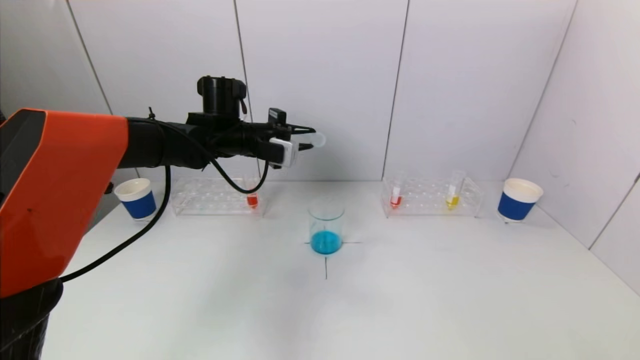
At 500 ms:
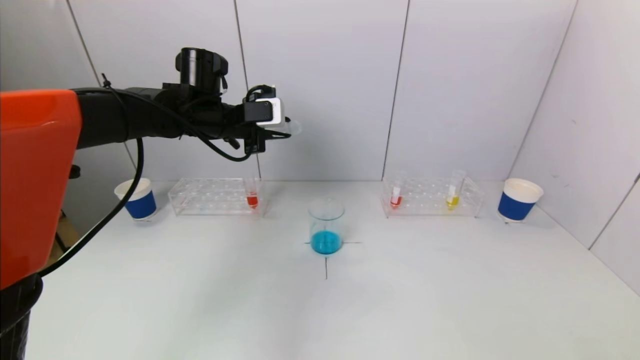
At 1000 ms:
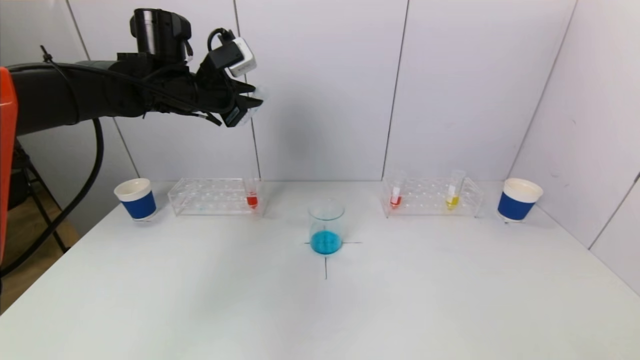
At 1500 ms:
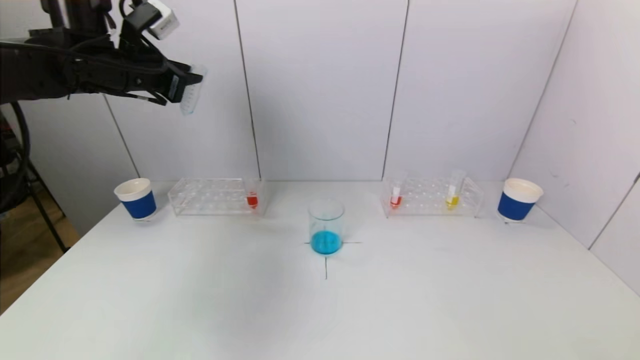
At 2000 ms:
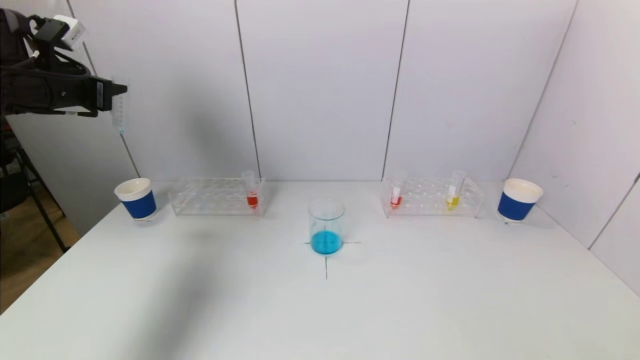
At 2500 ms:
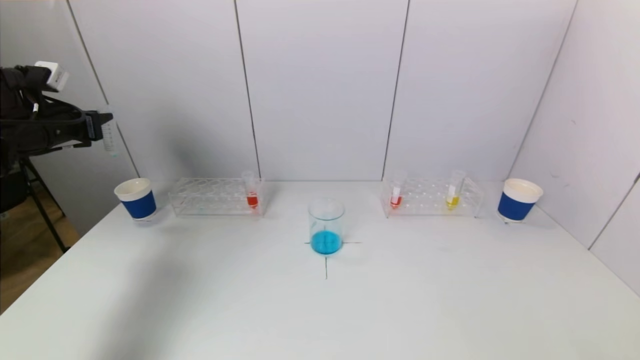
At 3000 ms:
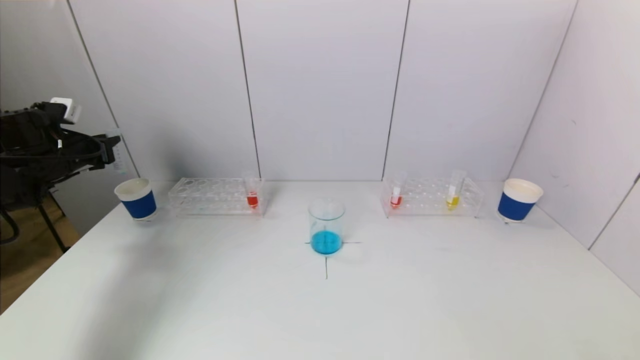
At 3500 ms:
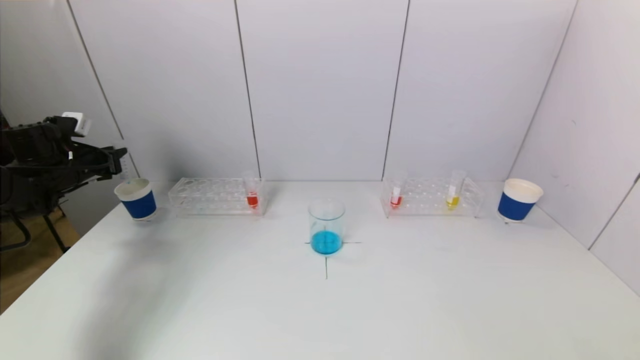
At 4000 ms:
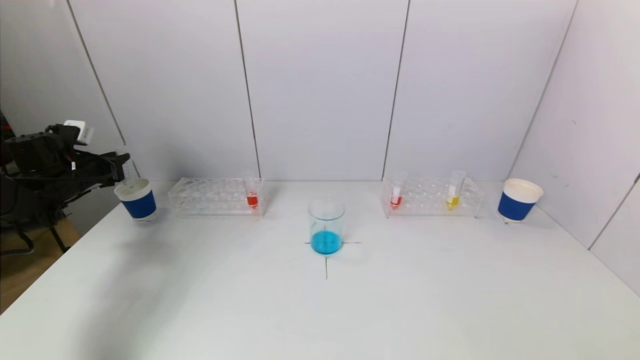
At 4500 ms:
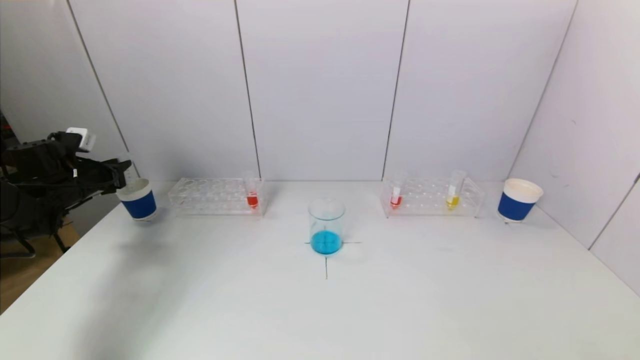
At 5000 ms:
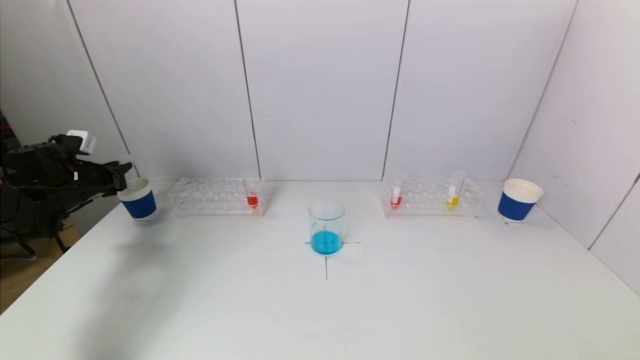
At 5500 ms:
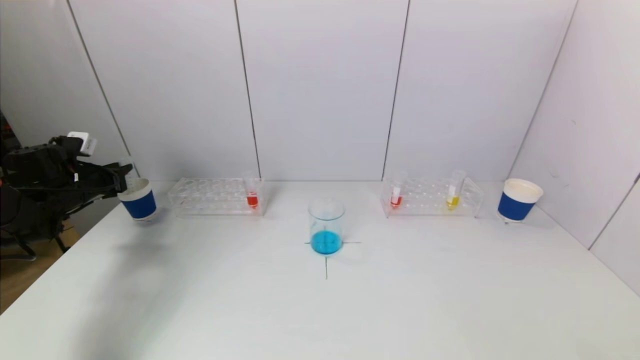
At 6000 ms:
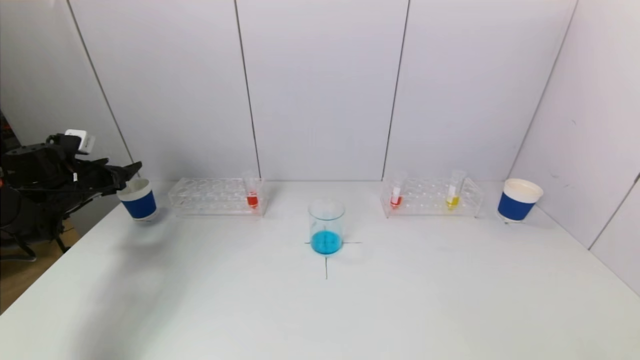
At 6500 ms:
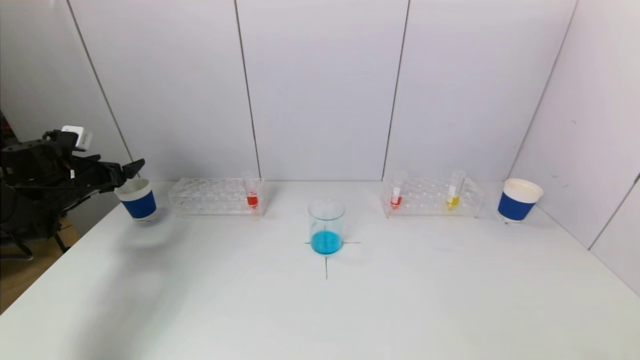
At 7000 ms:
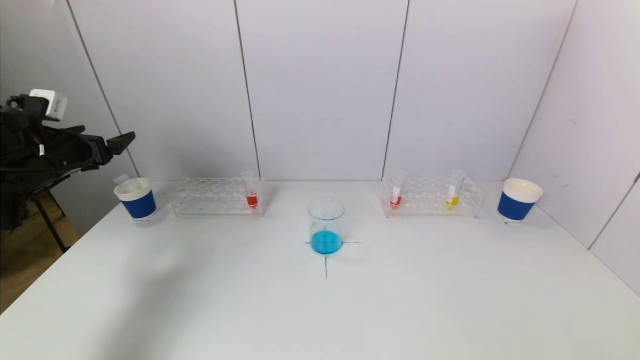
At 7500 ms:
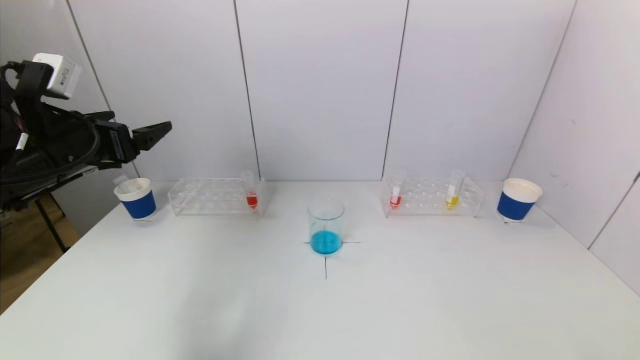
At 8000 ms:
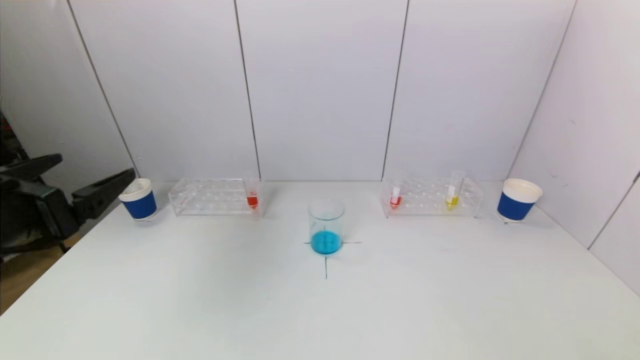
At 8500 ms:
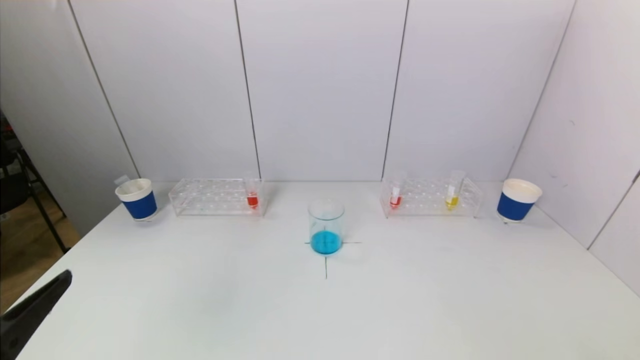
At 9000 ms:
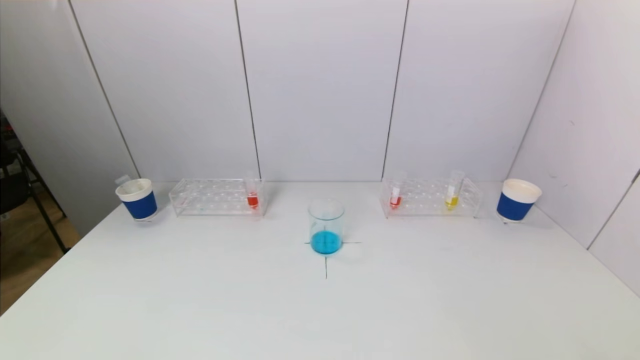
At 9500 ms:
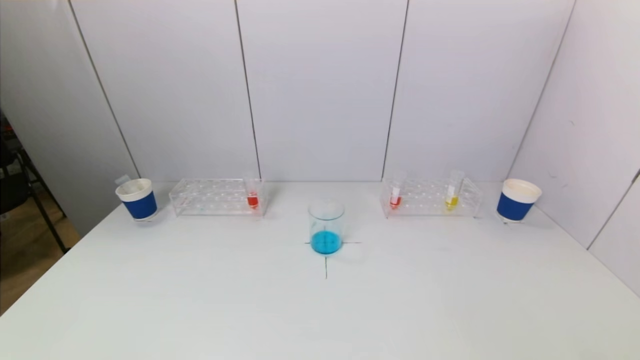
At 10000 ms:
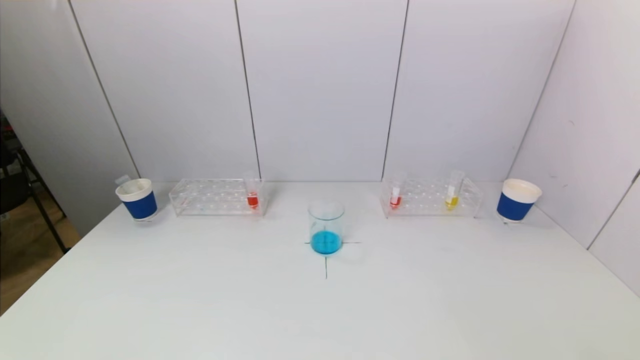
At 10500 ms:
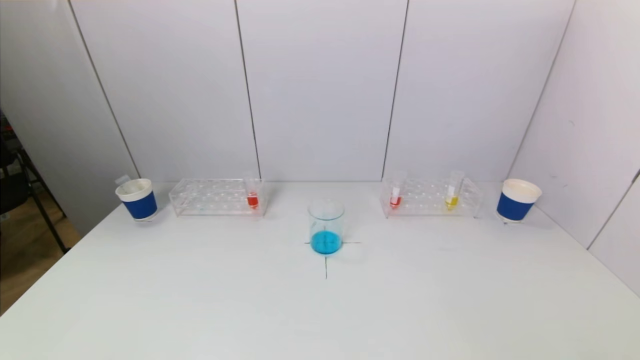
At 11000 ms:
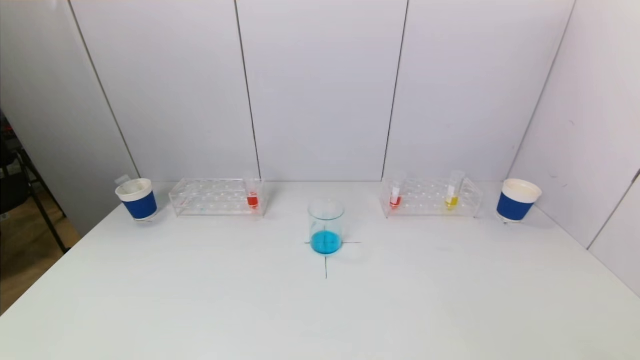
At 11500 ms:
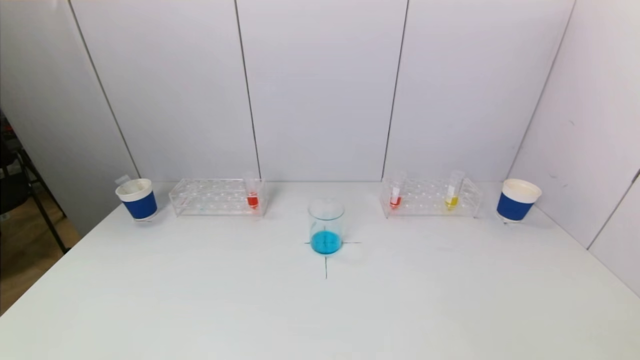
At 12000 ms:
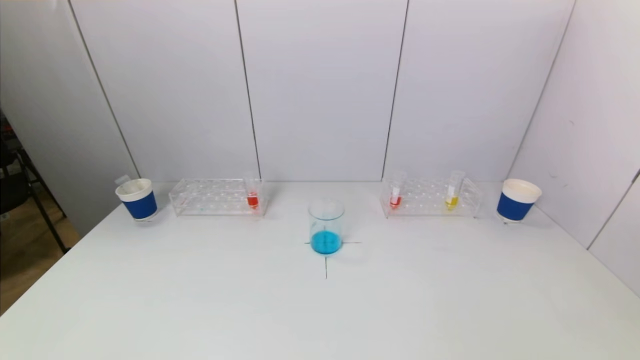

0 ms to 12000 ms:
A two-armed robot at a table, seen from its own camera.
Task of the whole recording: pick up a test tube with pigment on left test tube rack and a test tube with pigment on right test tube rack by grippers and pour them into the beaker.
Step, 0 ms to 6500 ms: Place the test tube into the paper cup with the left gripper.
0 ms to 2000 ms: The left gripper heads to the left, covering about 25 cm.
2000 ms to 4000 ms: The left gripper travels downward by about 15 cm.
4000 ms to 6000 ms: The left gripper opens its fingers.
6000 ms to 8000 ms: The left gripper moves backward, to the right and upward, approximately 35 cm.
8000 ms to 10000 ms: The left gripper shifts some 25 cm downward and backward.

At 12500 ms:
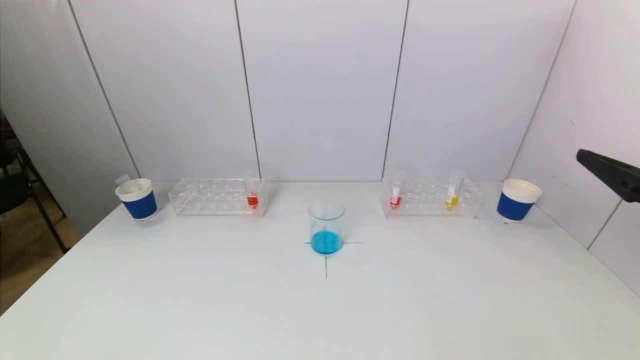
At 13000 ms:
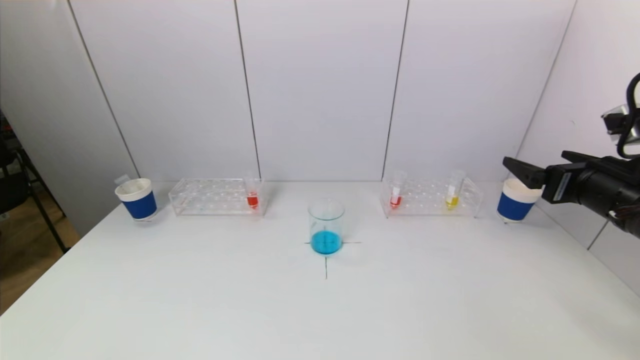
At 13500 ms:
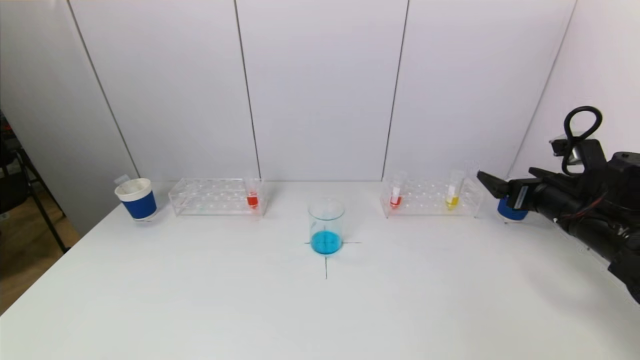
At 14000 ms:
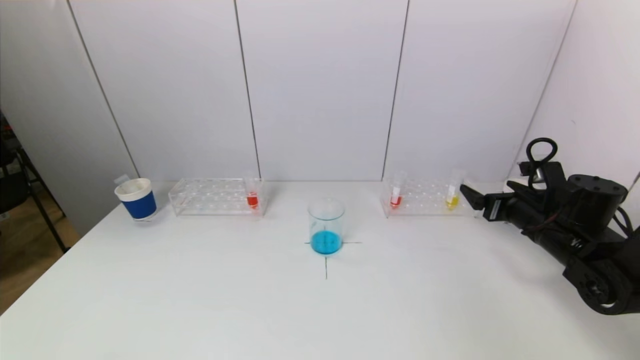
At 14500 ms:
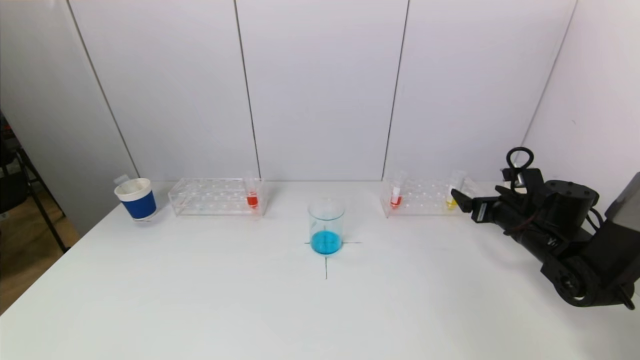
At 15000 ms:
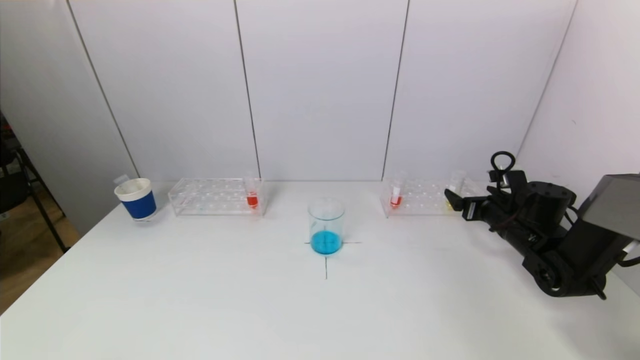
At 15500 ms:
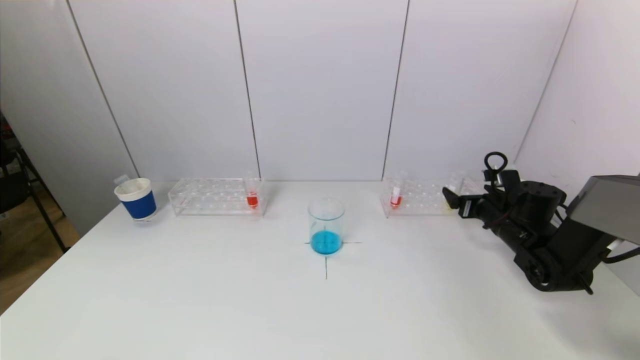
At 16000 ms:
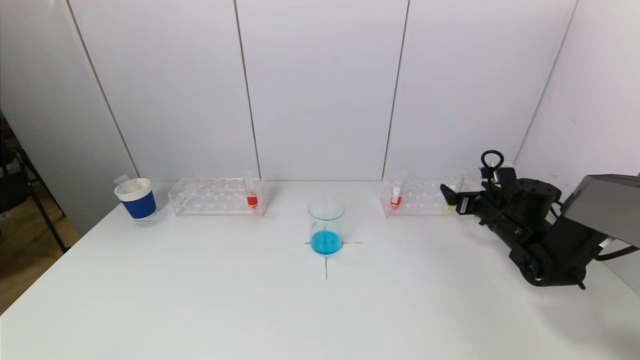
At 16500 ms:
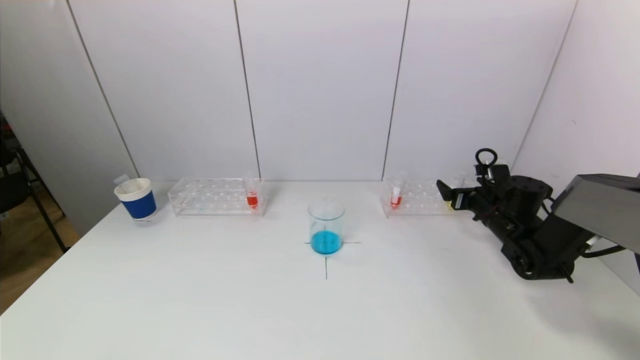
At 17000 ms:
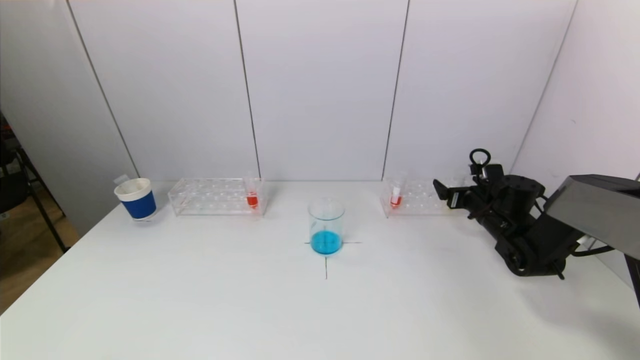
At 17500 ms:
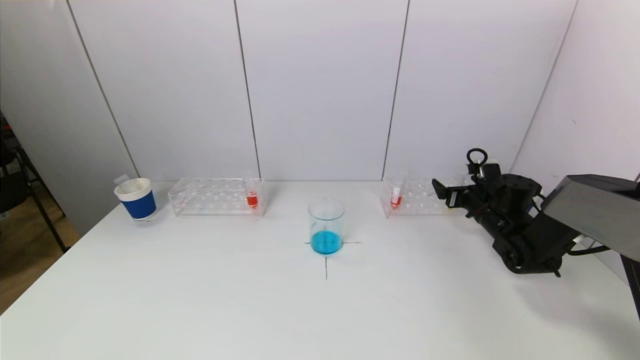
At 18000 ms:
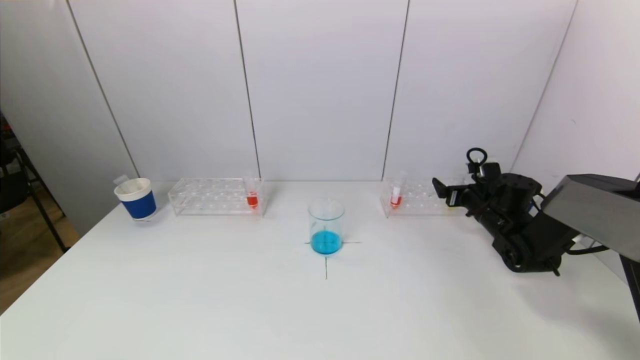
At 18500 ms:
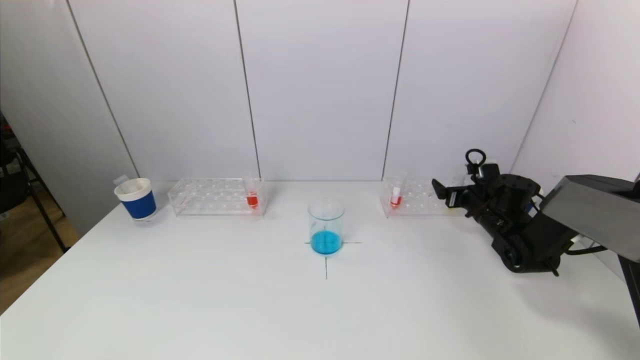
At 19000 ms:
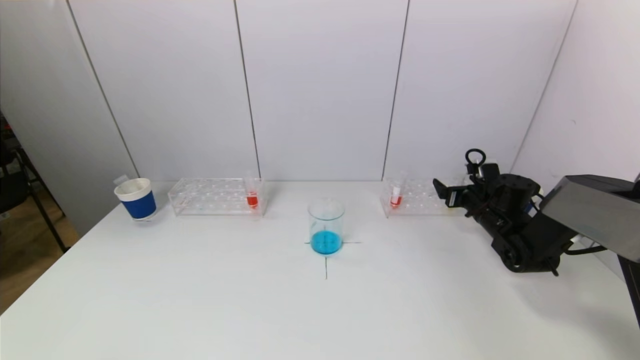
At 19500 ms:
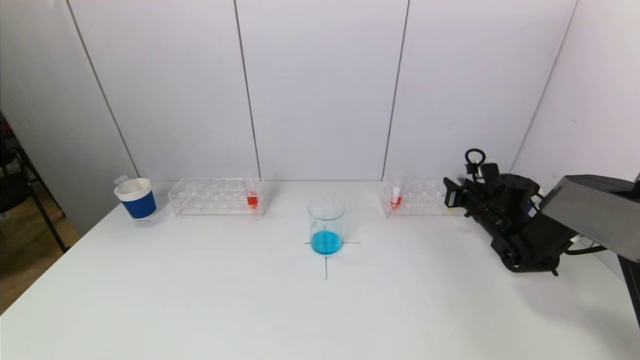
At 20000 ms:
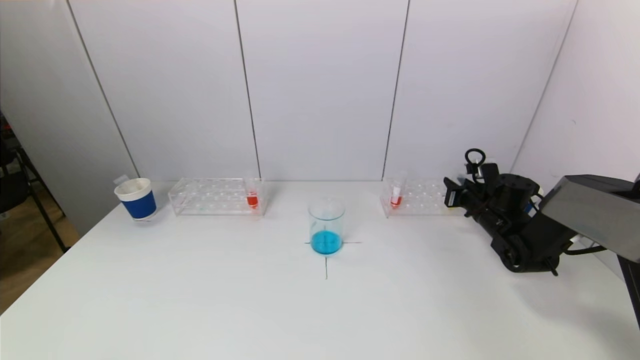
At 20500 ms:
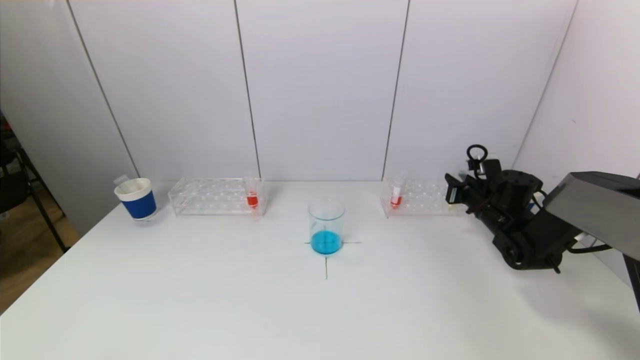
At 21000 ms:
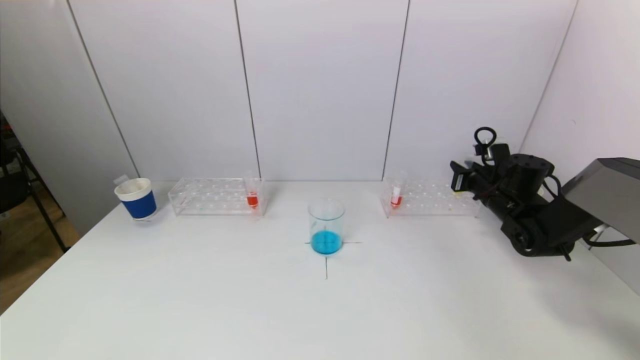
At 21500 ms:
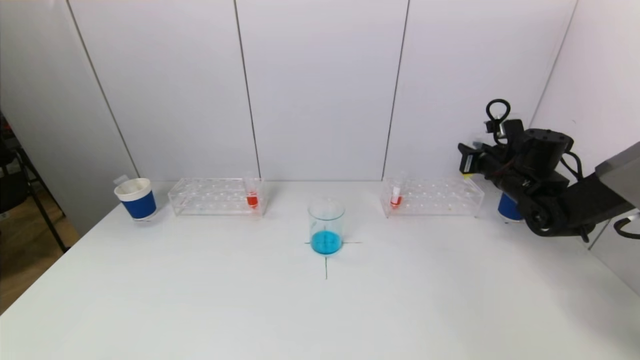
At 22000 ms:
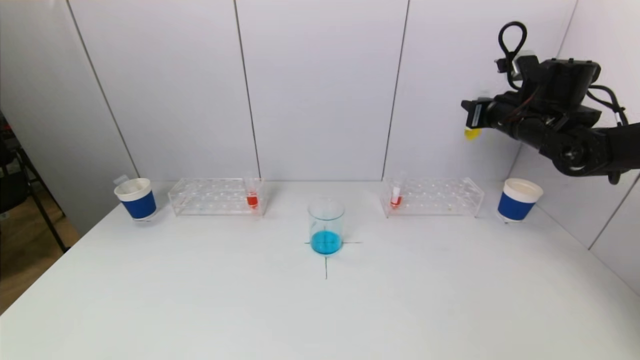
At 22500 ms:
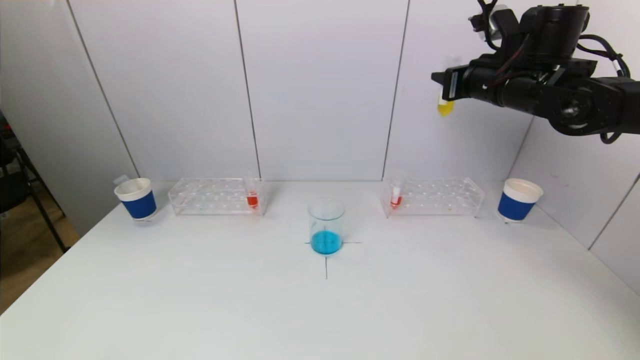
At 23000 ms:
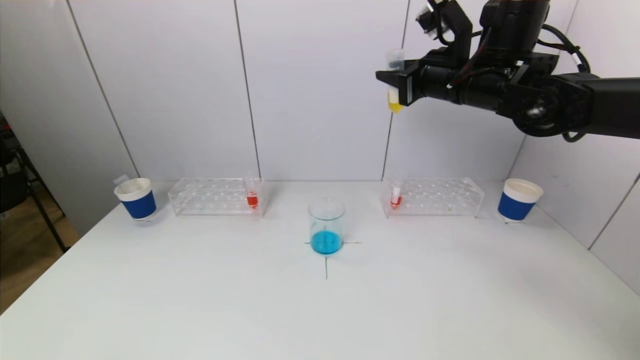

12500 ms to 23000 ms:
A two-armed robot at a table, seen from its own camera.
Task of the whole recording: pick up a test tube with pigment on left test tube rack and a test tube with pigment on right test tube rack by grippers and pour them into the beaker.
Step, 12500 ms to 19500 ms: Grasp the yellow reagent with the right gripper.
12500 ms to 14500 ms: The right gripper is displaced forward and downward by approximately 25 cm.
14500 ms to 16500 ms: The right gripper travels forward by some 5 cm.
16500 ms to 19000 ms: The grippers stay close to where they were, moving slightly.
19000 ms to 21000 ms: The right gripper closes.
21000 ms to 23000 ms: The right gripper travels upward and to the left by some 25 cm.
